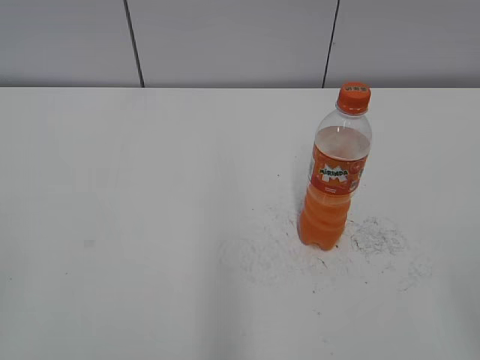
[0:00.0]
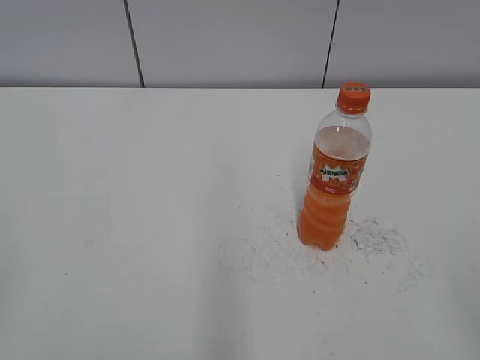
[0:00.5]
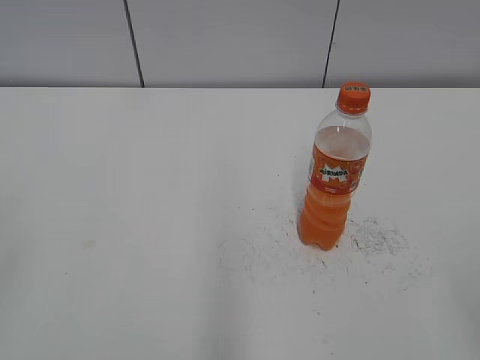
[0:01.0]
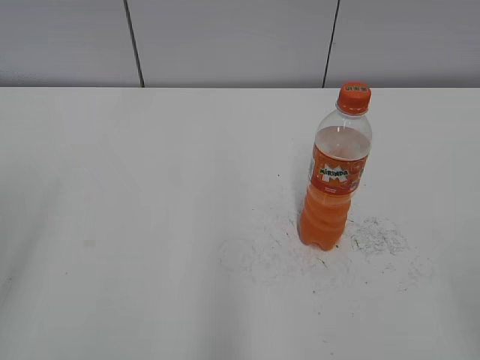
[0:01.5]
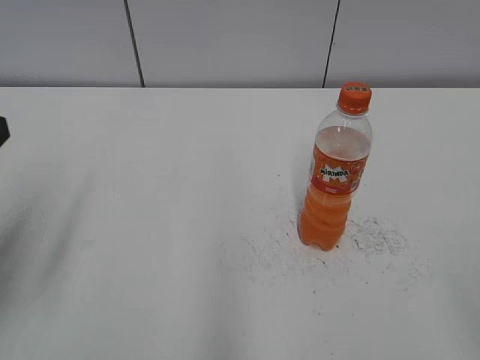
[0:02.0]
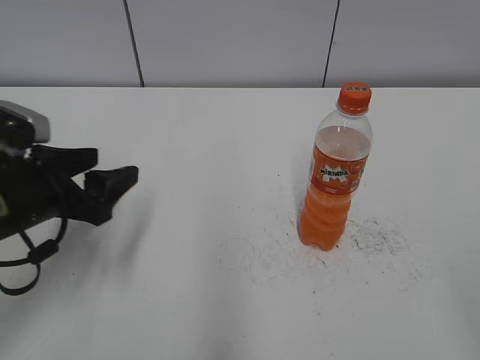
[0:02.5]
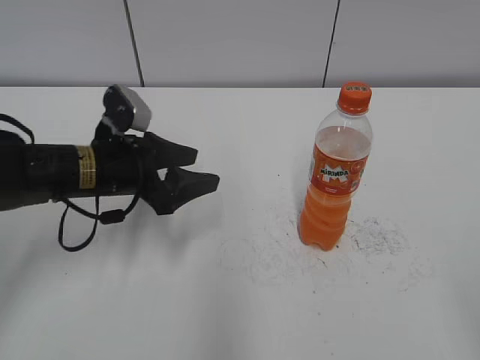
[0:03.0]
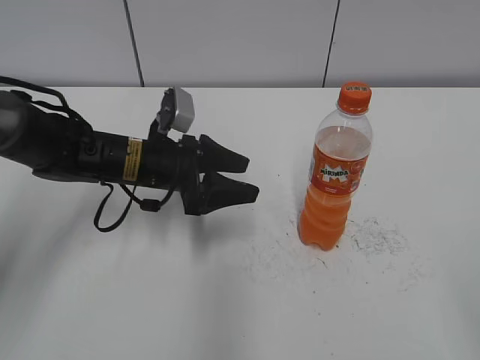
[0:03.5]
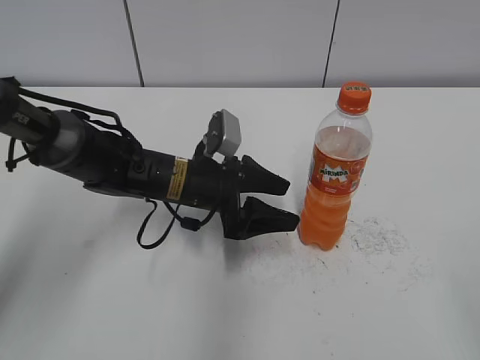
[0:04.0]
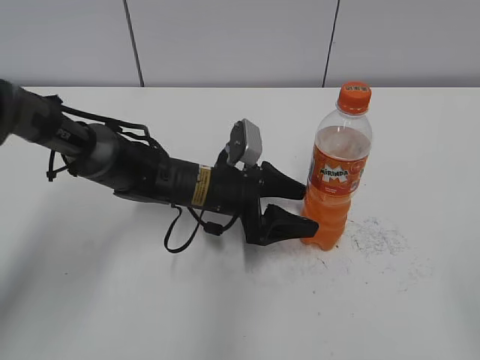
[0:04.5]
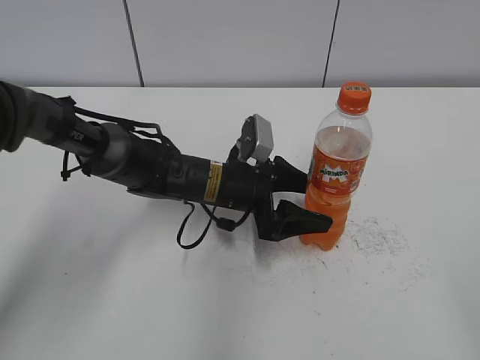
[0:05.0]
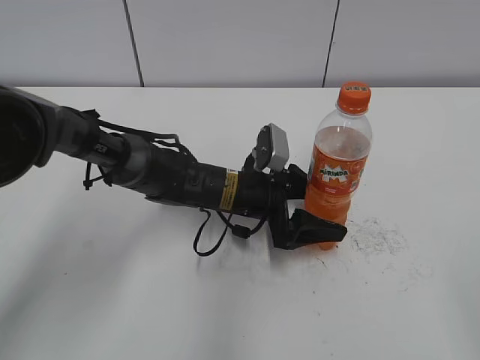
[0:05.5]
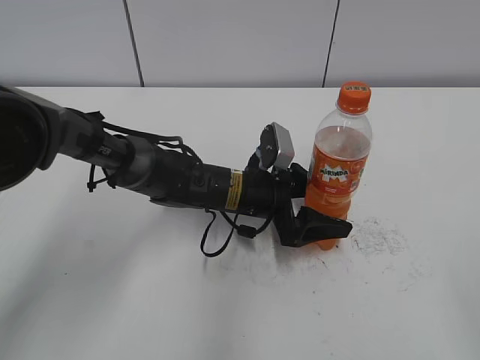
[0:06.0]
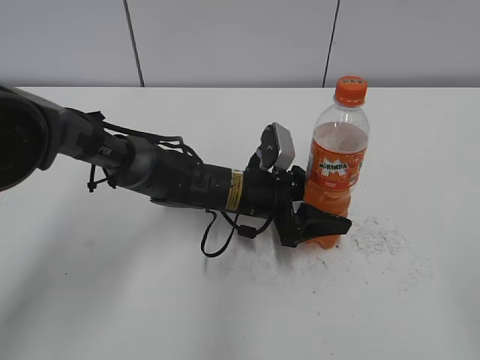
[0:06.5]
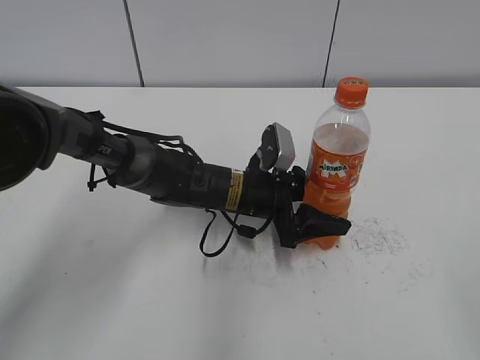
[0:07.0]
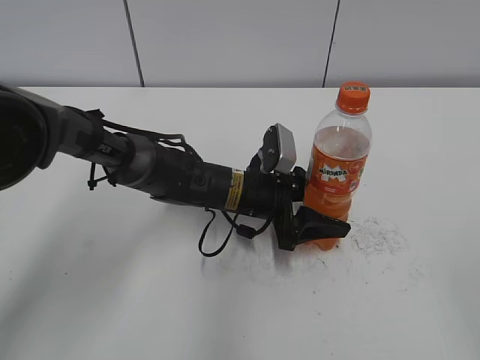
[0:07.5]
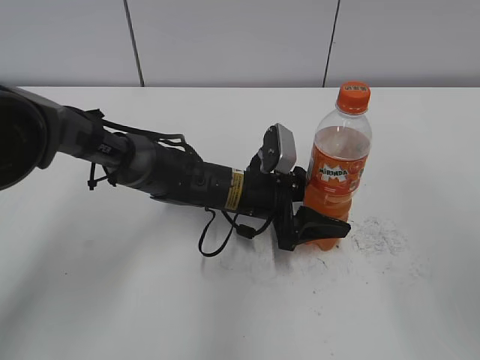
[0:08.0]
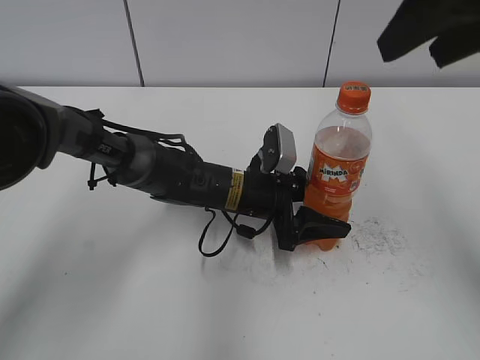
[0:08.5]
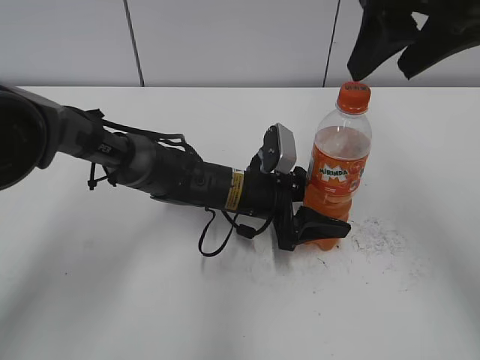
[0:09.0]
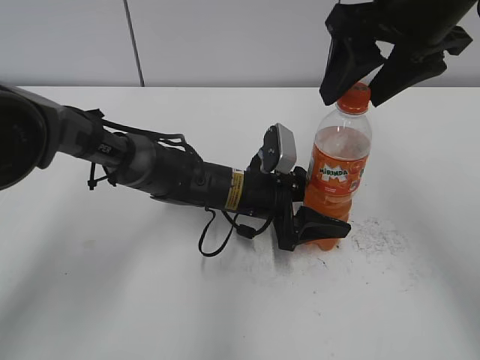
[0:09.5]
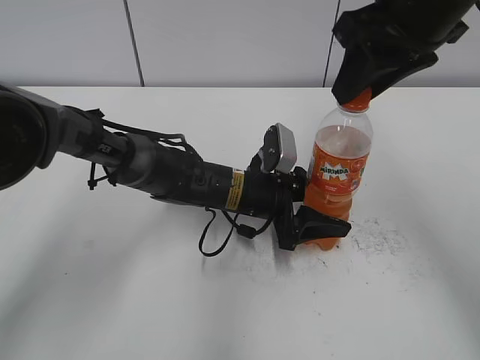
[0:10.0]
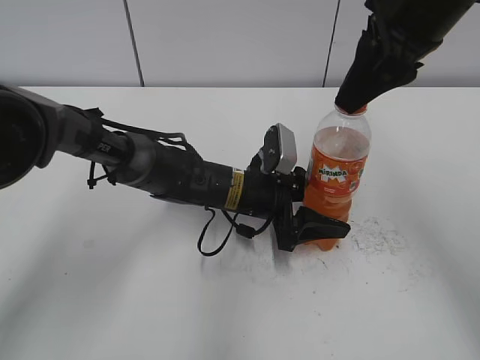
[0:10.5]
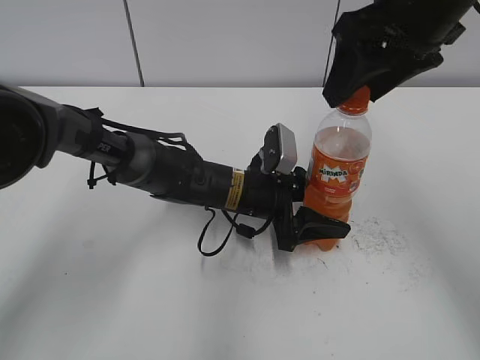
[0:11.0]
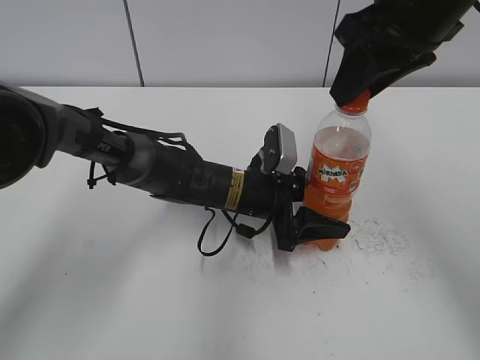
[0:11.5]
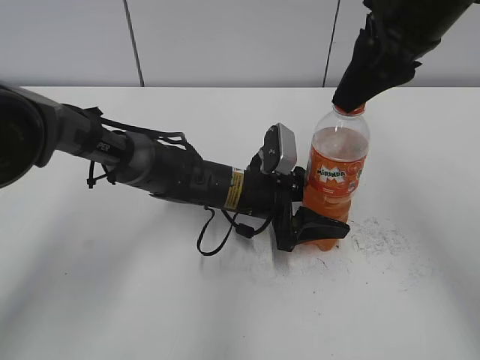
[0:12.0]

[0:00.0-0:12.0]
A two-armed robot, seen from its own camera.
Step, 0:00.0 to 0:06.5: Grab the Mirinda with the left hand.
0:02.0 to 0:04.0: The left gripper heads to the right, forward and downward, covering roughly 30 cm.
0:04.0 to 0:06.0: The left gripper shifts roughly 5 cm to the right.
0:06.0 to 0:08.0: The left gripper closes; the right gripper is displaced forward and upward by roughly 15 cm.
0:08.0 to 0:10.0: The right gripper moves forward and to the left, roughly 25 cm, and closes.
0:10.0 to 0:12.0: The right gripper opens and closes again.

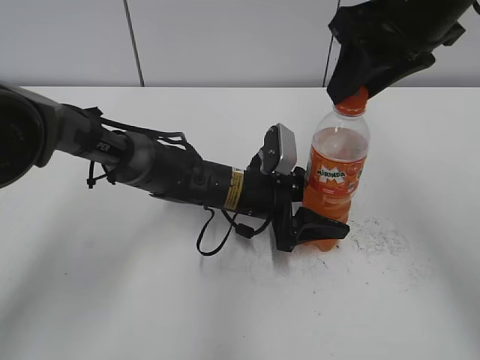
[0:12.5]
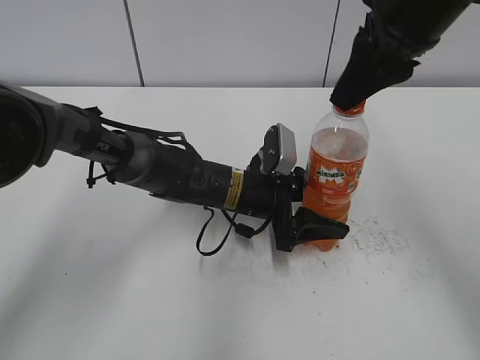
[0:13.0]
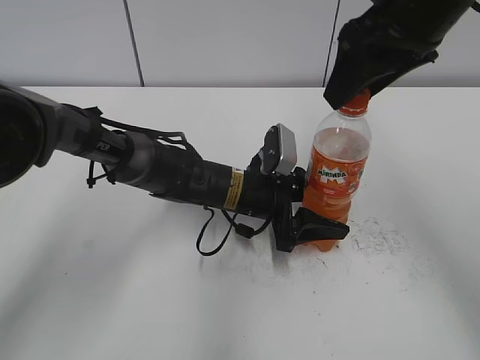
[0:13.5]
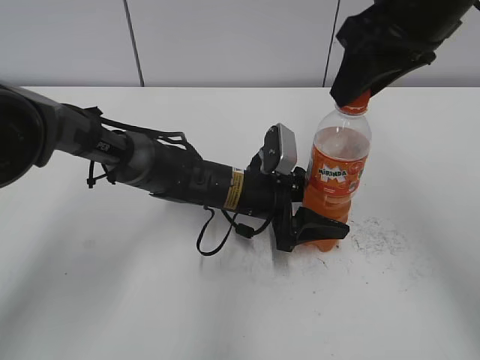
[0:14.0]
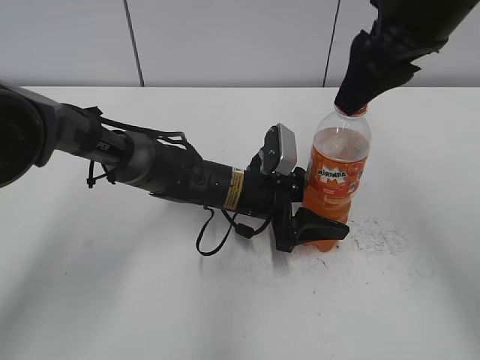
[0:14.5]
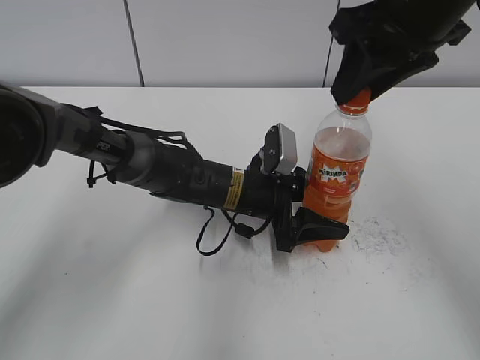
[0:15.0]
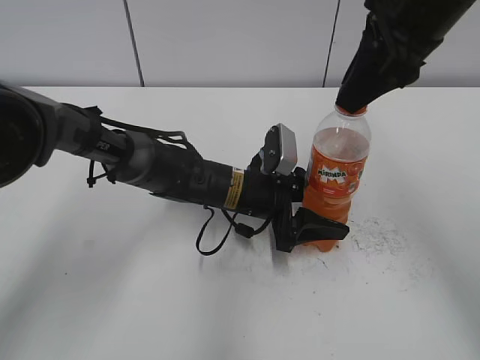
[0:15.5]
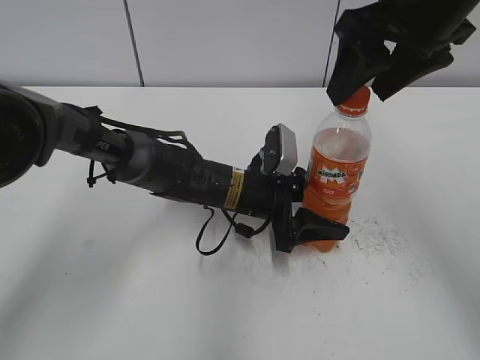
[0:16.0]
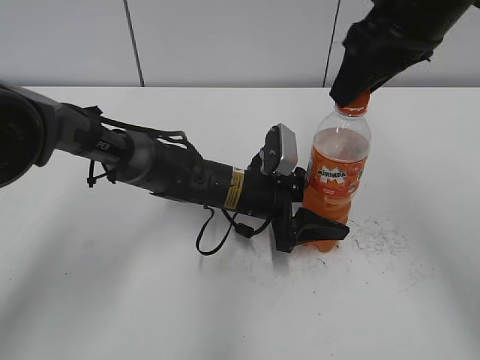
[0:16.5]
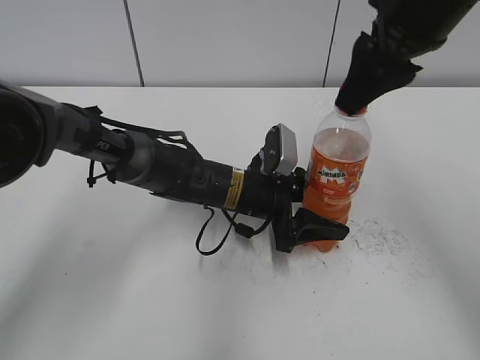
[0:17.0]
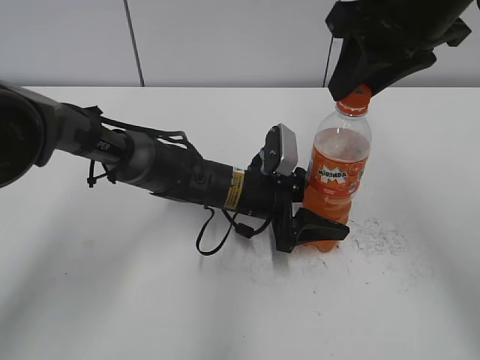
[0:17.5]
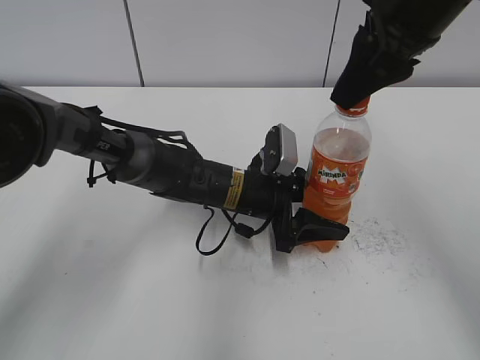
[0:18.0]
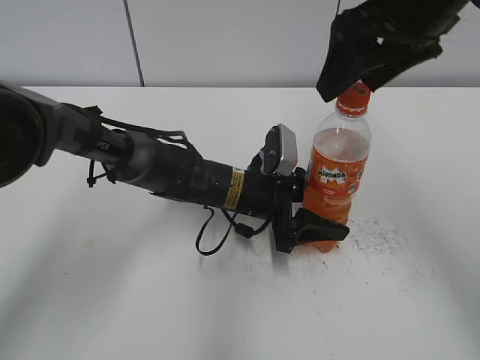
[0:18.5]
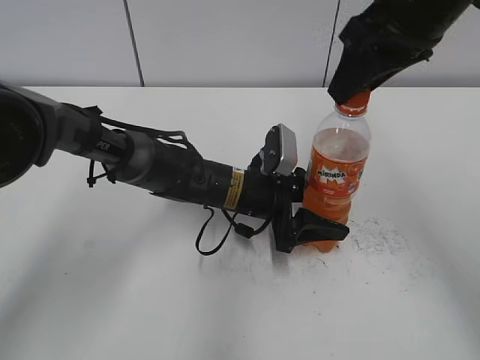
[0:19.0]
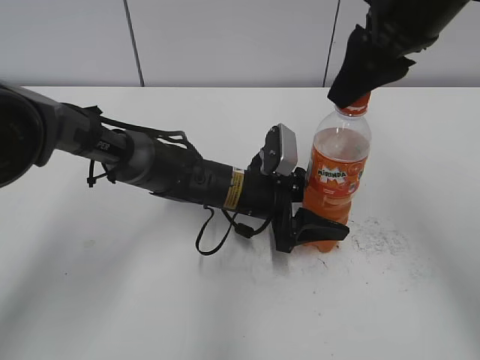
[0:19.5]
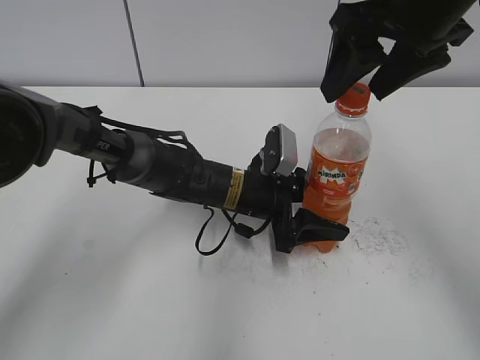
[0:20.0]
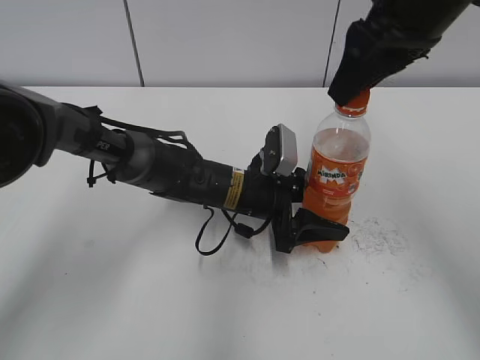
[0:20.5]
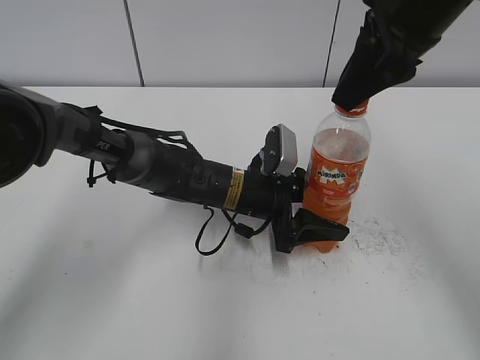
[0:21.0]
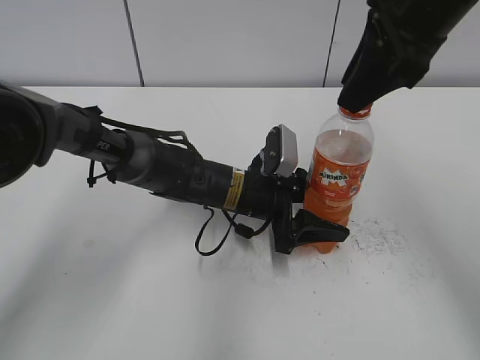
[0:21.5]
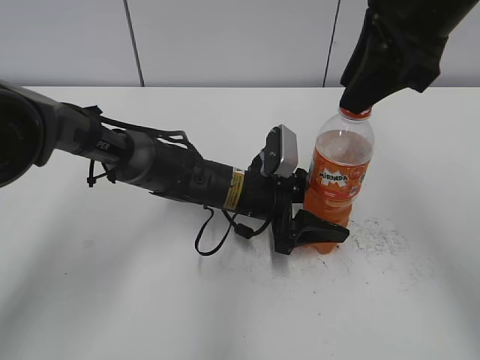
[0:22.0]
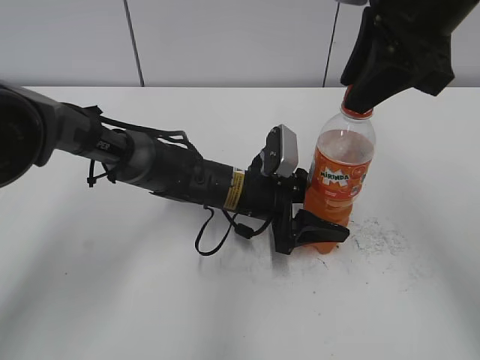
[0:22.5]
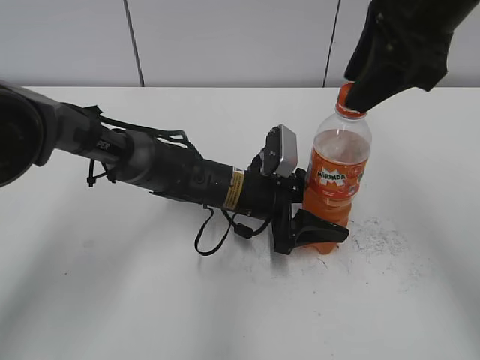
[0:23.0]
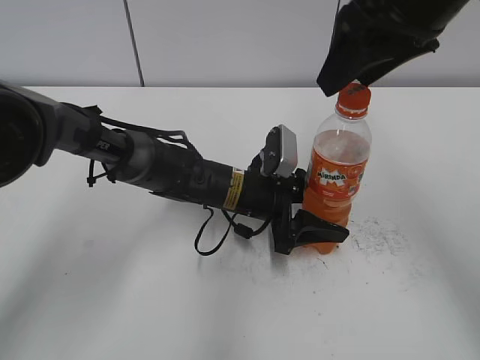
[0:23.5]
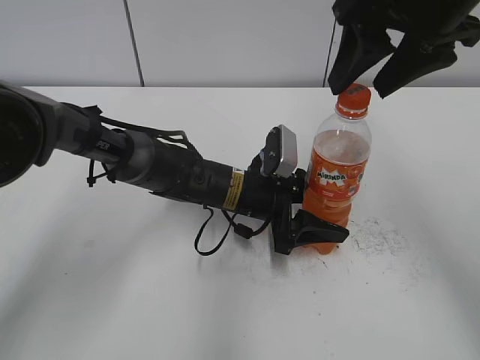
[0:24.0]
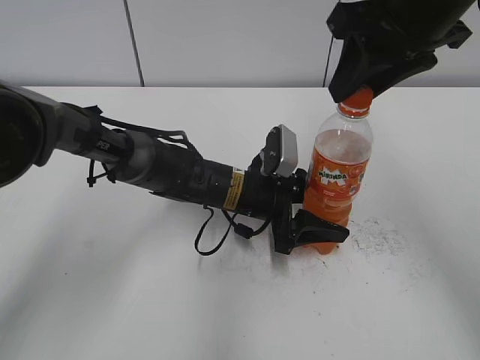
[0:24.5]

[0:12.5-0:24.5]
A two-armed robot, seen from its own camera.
0:14.5 to 0:16.5: The right gripper closes.
0:16.5 to 0:18.5: The right gripper opens its fingers.
0:18.5 to 0:20.5: The right gripper closes.
0:22.5 to 0:24.5: The right gripper opens, then closes again.

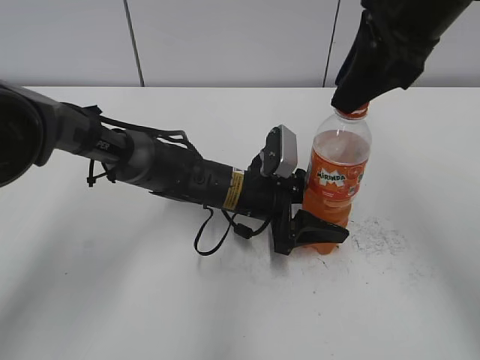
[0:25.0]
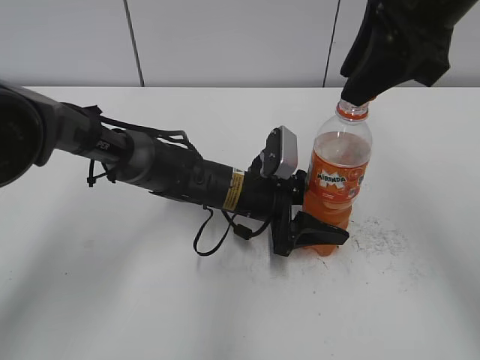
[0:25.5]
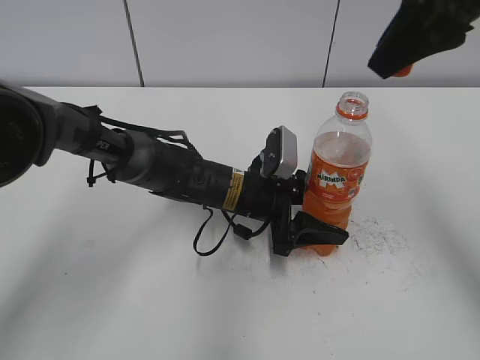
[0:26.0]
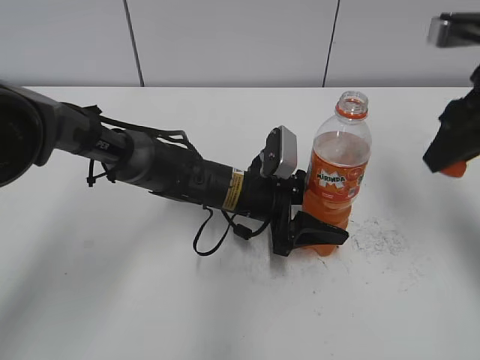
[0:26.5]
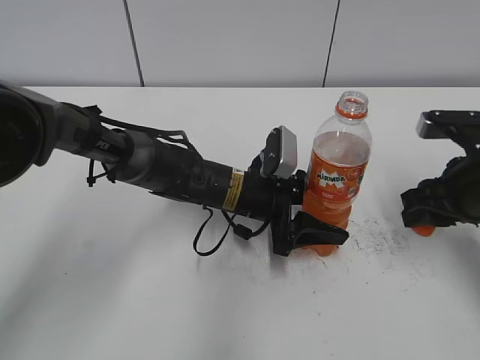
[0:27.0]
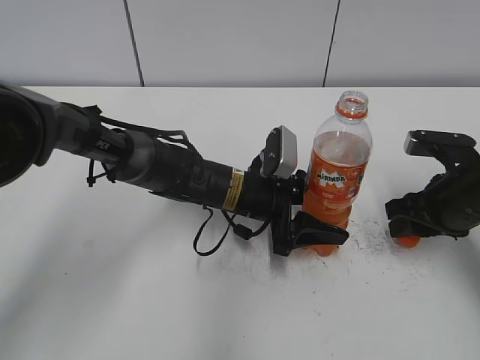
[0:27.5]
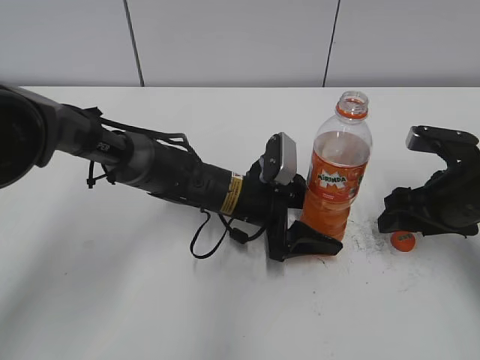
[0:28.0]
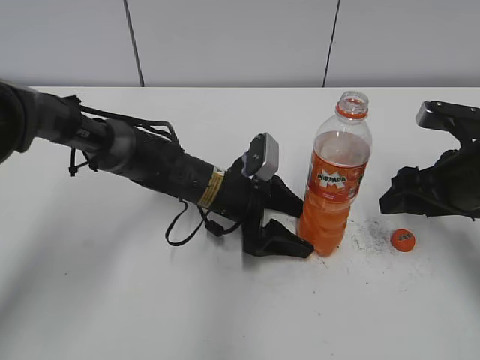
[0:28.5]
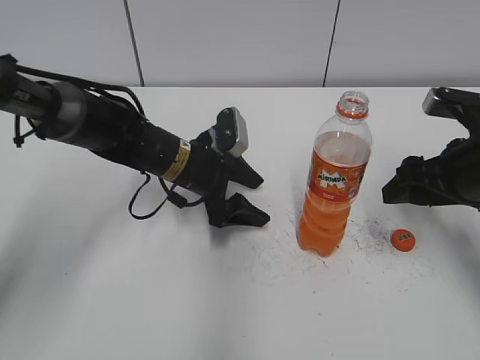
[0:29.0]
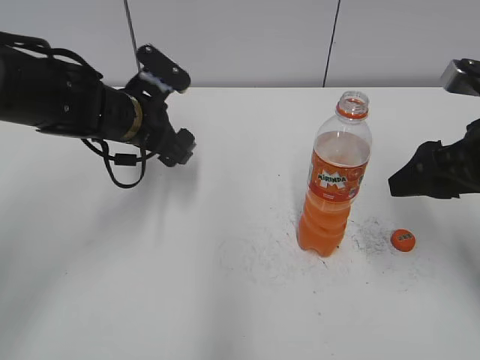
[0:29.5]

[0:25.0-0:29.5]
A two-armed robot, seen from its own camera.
Step, 0:26.0 to 0:28.0: Place the bottle cap on the table with the right hand.
0:25.0 to 0:27.0: The right gripper heads downward and to the right, covering roughly 20 cm.
0:27.0 to 0:29.5: The right gripper is displaced upward by some 5 cm, and opens up. The left gripper goes roughly 15 cm to the left and upward, and opens its fingers.
